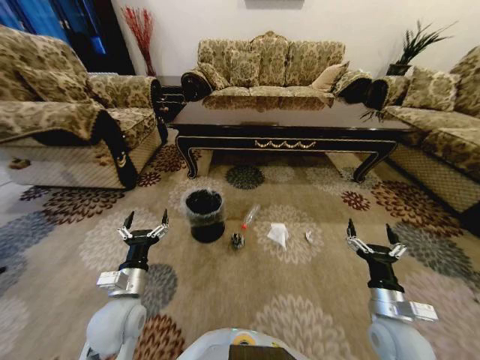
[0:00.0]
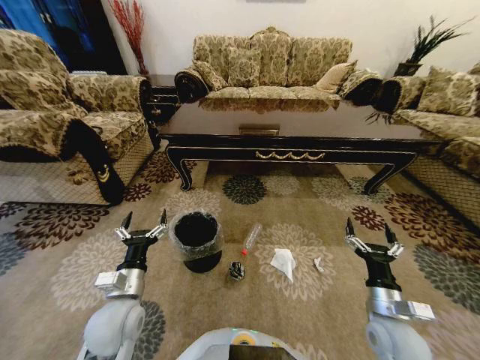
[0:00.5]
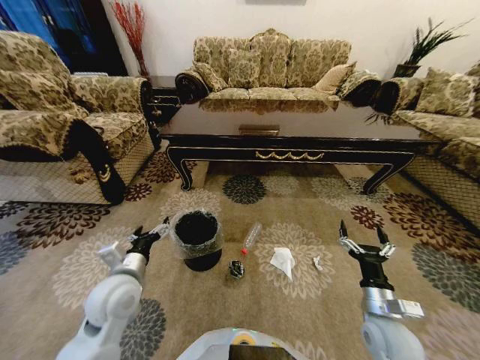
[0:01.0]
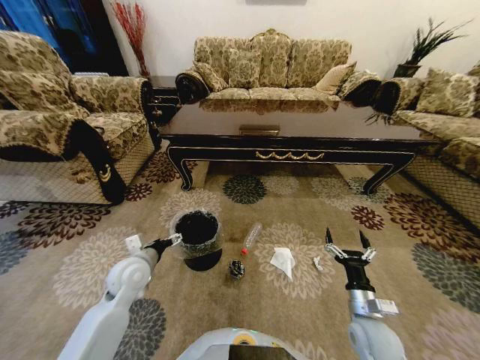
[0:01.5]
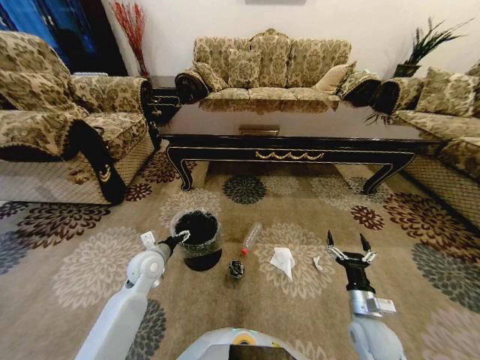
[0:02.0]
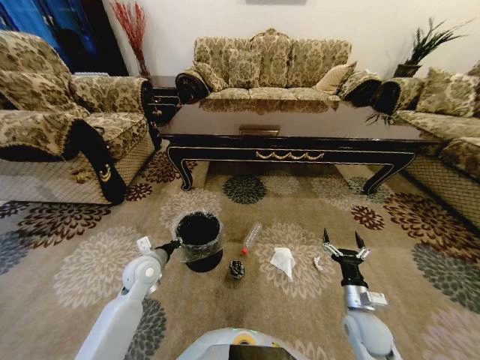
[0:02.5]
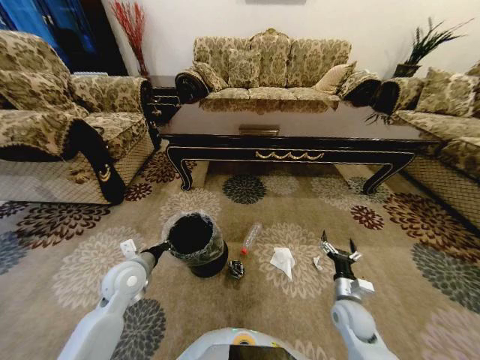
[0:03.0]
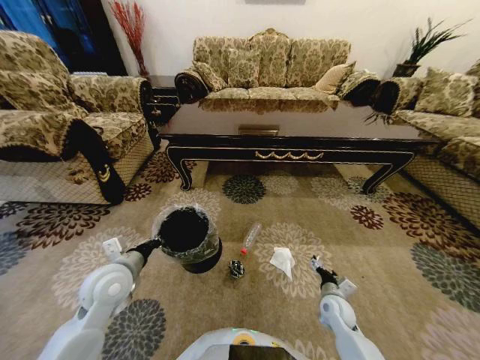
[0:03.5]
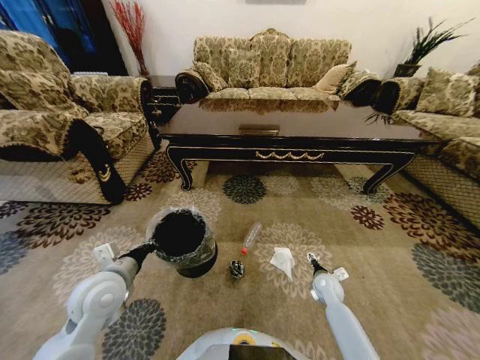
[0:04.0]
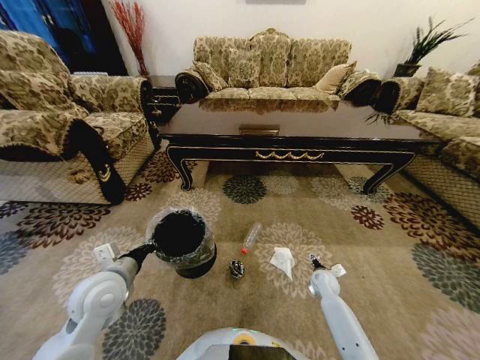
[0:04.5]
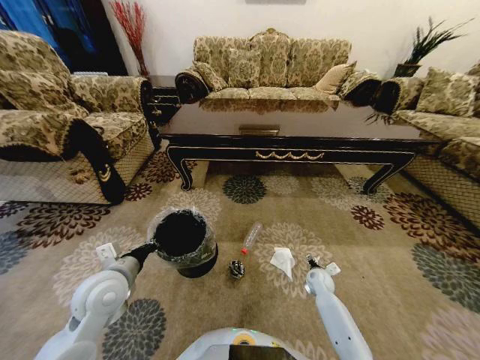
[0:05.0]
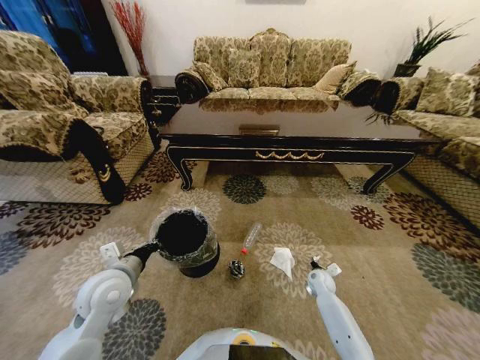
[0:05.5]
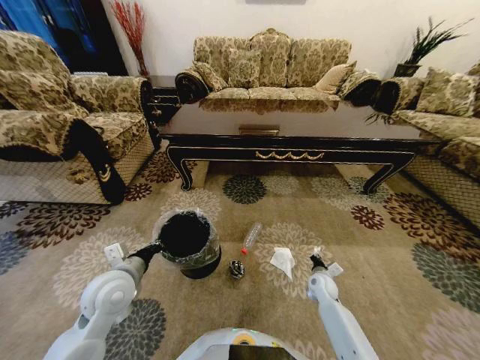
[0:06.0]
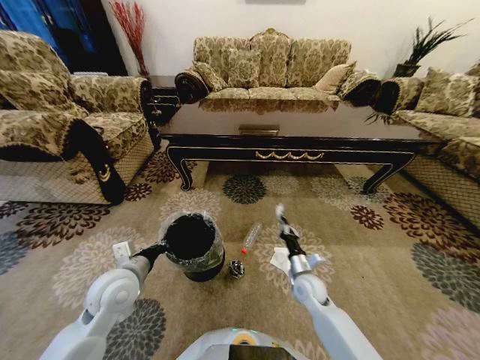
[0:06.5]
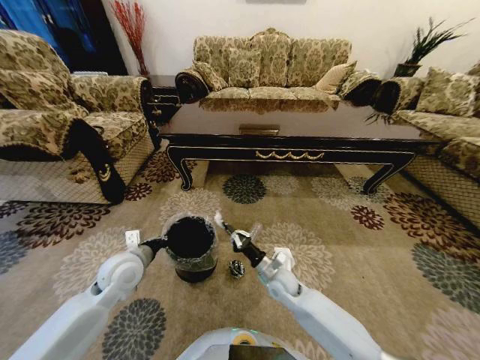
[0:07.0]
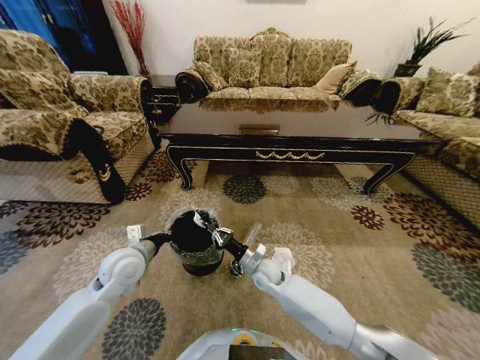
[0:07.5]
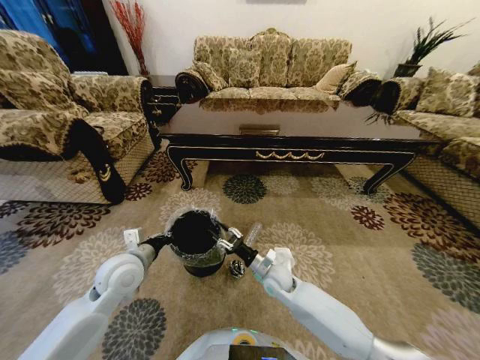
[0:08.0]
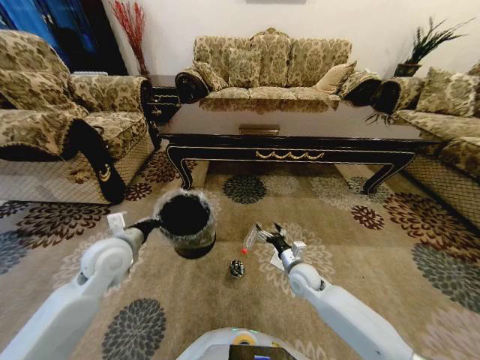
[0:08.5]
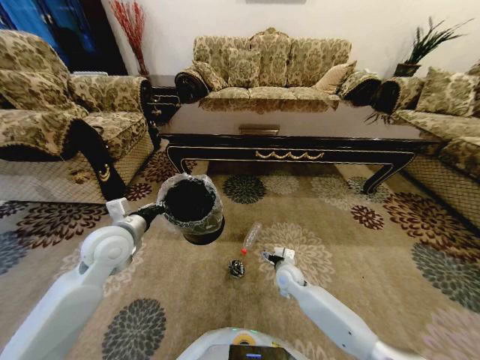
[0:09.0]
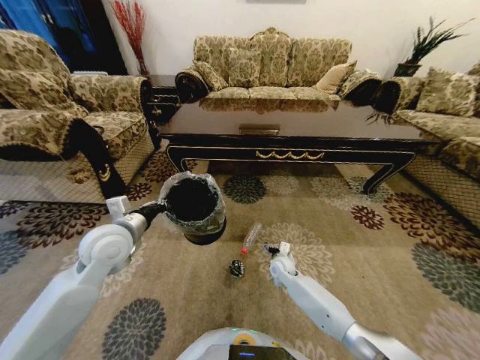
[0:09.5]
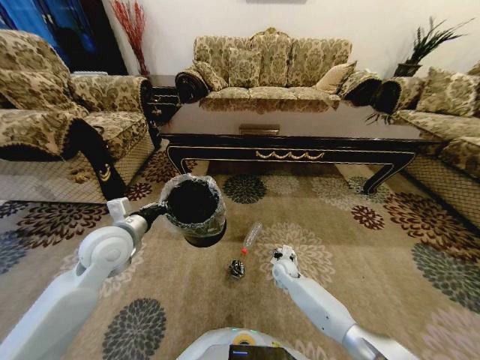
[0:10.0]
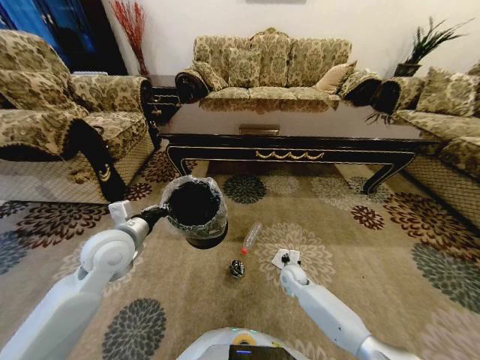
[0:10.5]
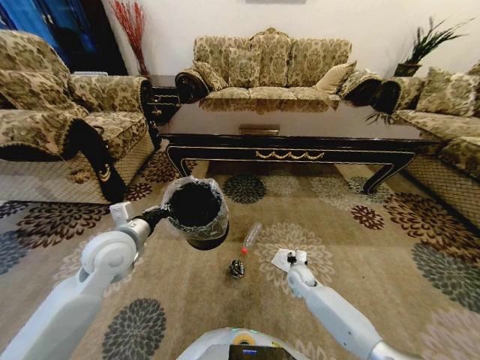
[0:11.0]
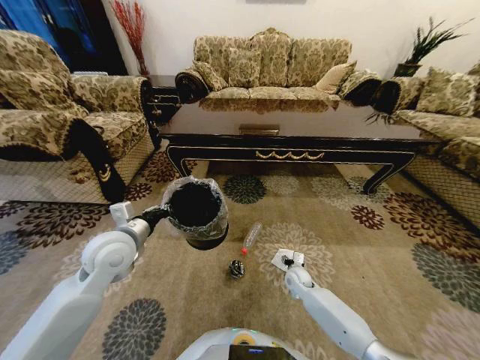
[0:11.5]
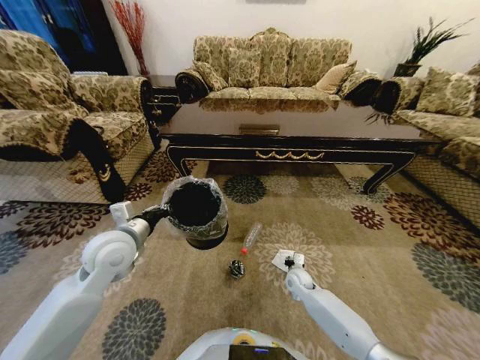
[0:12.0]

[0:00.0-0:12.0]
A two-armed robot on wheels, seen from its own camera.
Task of the whole recording: Move to the front of the table and pick up the trash from the floor, then place it into the trash bin.
0:00.0 to 0:02.0: The right gripper heads downward, covering about 5 cm. Meanwhile the left gripper moves forward, some 15 cm.
0:02.0 to 0:04.0: The right gripper heads forward and downward, covering roughly 15 cm. The left gripper moves backward and upward, some 15 cm, and closes up.
0:04.0 to 0:06.0: The right gripper closes.
0:06.0 to 0:08.0: The right gripper is displaced to the left and upward by approximately 20 cm, and opens.
0:08.0 to 0:10.0: The right gripper travels downward, forward and to the right by approximately 10 cm, and opens. Meanwhile the left gripper shifts roughly 10 cm upward.
0:10.0 to 0:12.0: The right gripper ends up approximately 5 cm from where it was, and closes.

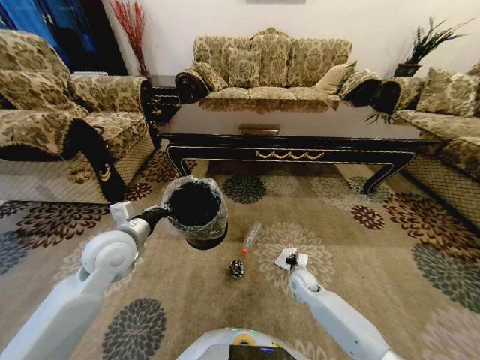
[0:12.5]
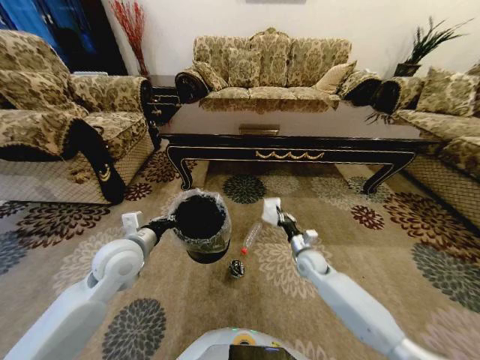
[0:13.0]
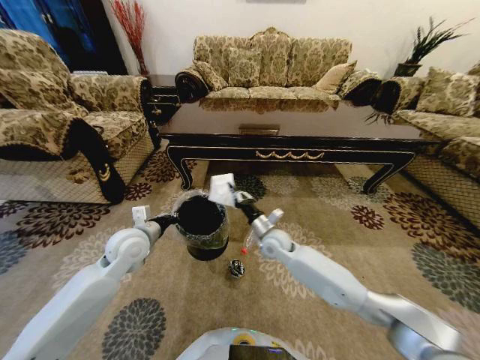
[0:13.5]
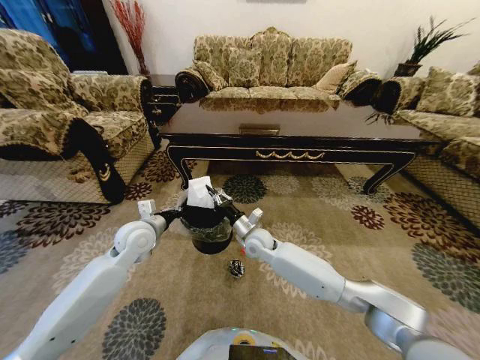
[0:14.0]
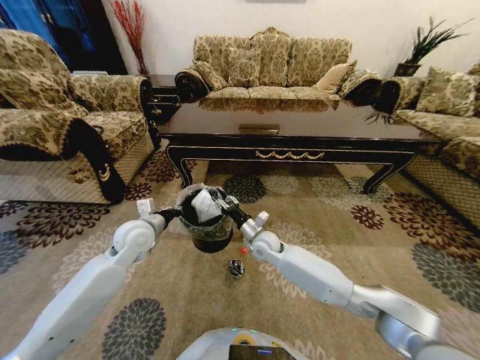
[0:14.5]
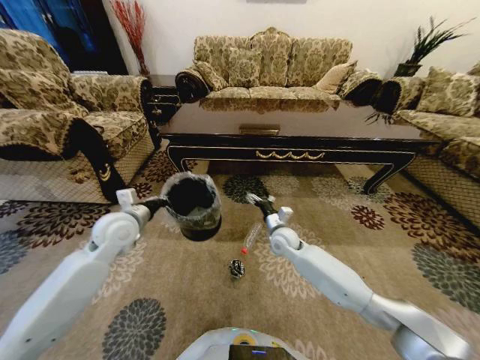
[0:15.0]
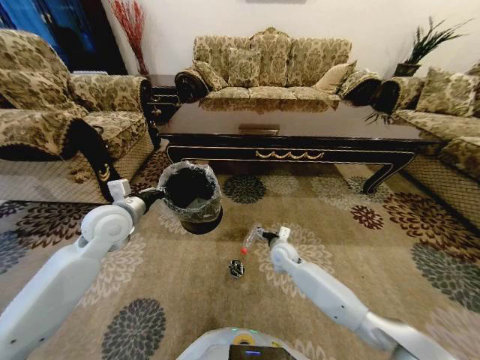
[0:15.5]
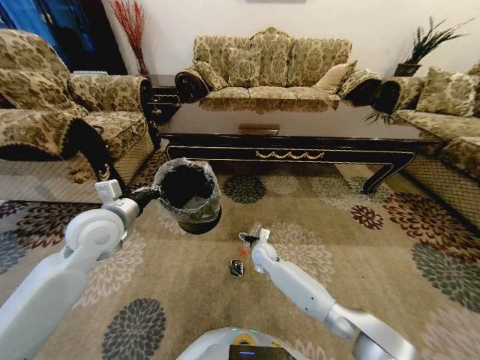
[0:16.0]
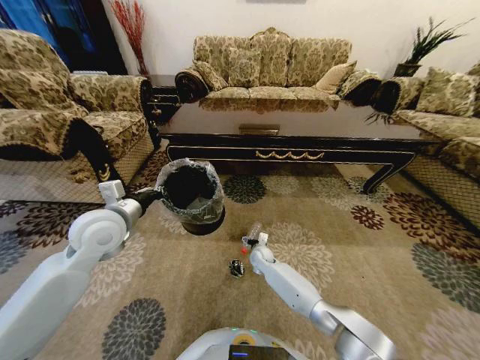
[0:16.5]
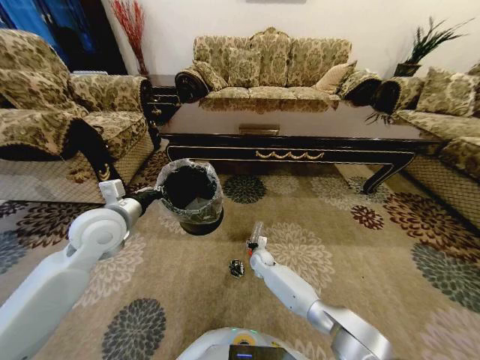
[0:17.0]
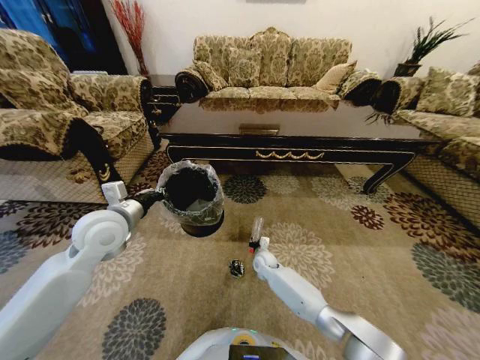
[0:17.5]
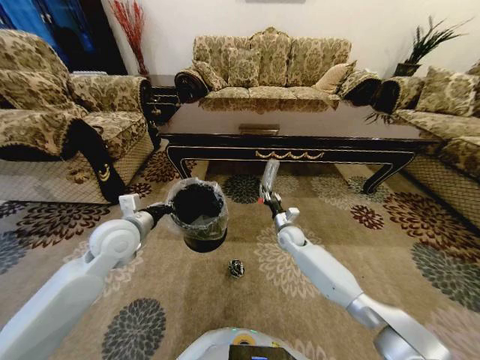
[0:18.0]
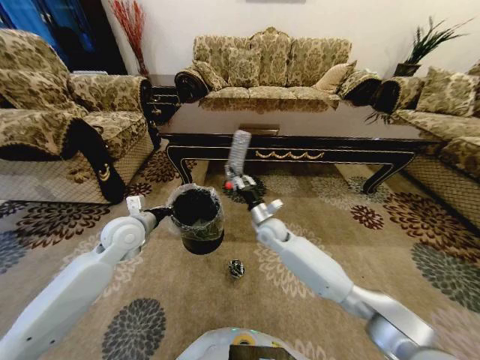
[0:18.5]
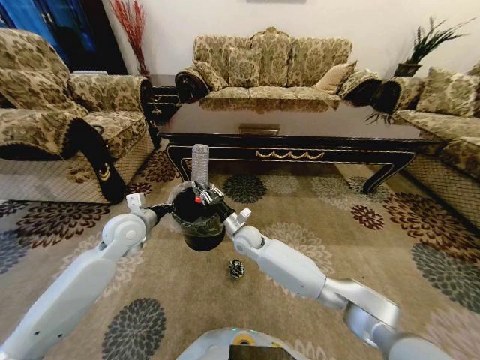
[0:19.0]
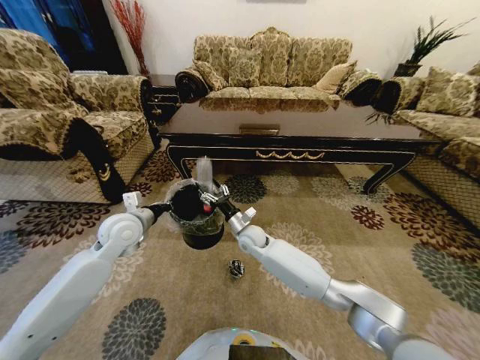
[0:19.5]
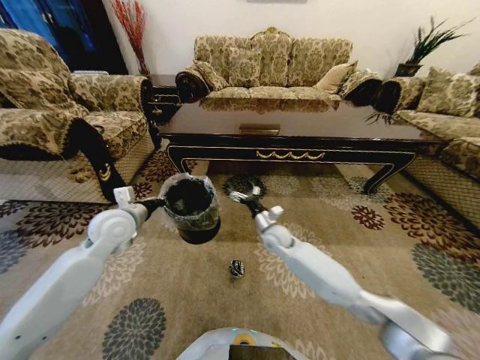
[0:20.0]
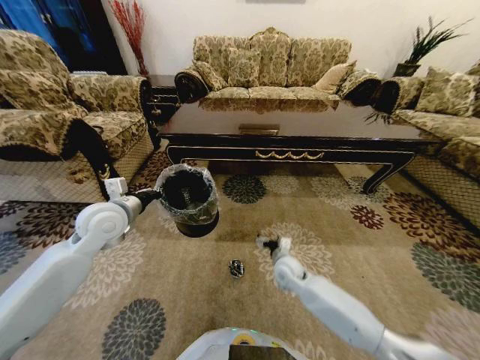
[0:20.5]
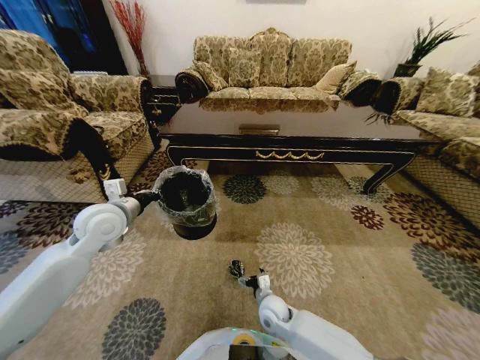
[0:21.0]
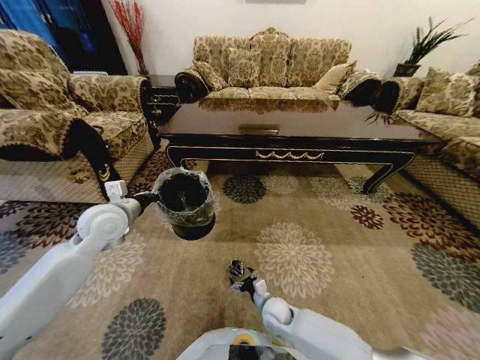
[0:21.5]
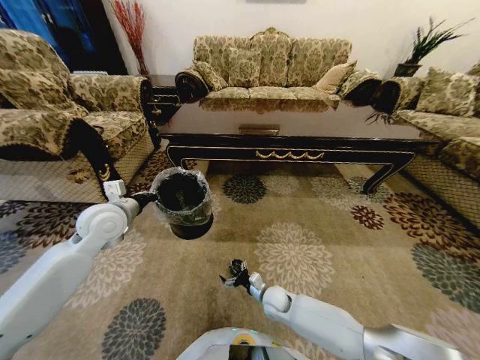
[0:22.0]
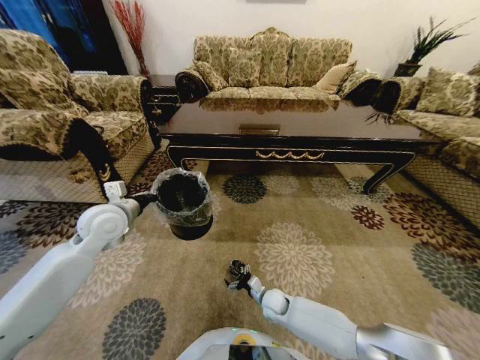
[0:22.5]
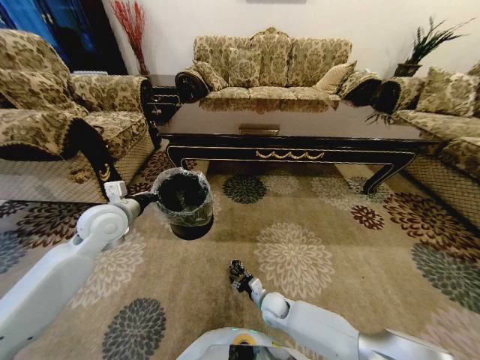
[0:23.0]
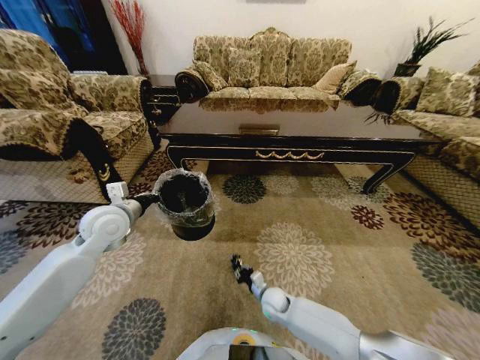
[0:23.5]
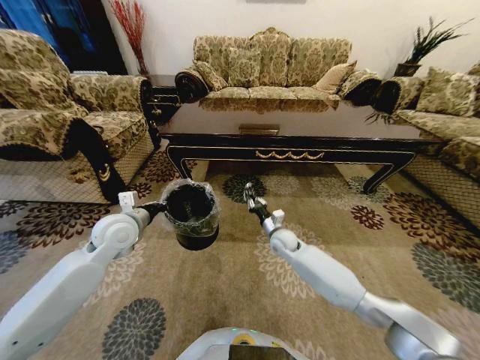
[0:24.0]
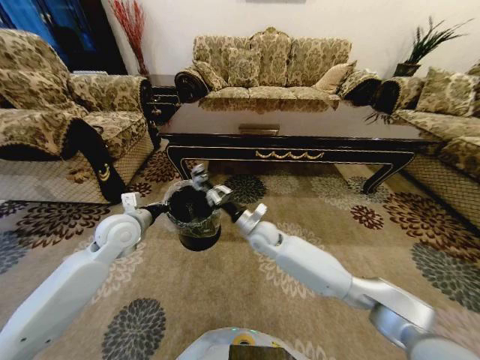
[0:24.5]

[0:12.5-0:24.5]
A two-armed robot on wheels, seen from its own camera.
Task of the whole recording: Move to the front of the table and pick up the trash from the floor, then place it into the trash bin.
0:12.5 to 0:14.5: The right gripper is displaced to the left, upward and forward by roughly 25 cm, and opens up. Meanwhile the left gripper goes about 5 cm forward.
0:14.5 to 0:16.5: The left gripper moves upward, some 10 cm. The right gripper goes some 15 cm downward, and opens up.
0:16.5 to 0:18.5: The left gripper travels downward by roughly 5 cm. The right gripper shifts roughly 20 cm upward, and closes its fingers.
0:18.5 to 0:20.5: The right gripper goes roughly 15 cm downward, backward and to the right, and opens up. Meanwhile the left gripper shifts about 5 cm upward.
0:20.5 to 0:22.5: The right gripper heads downward and backward, covering about 15 cm.
0:22.5 to 0:24.5: The right gripper travels upward and forward by some 25 cm, and closes its fingers.

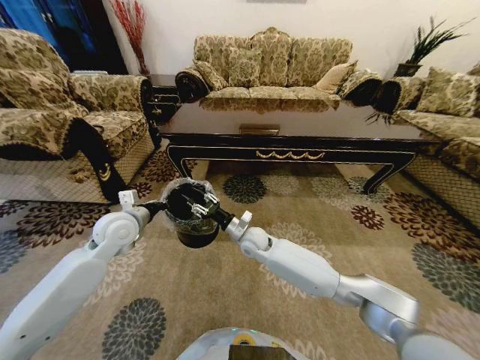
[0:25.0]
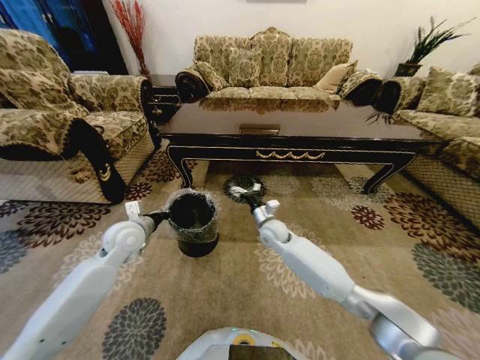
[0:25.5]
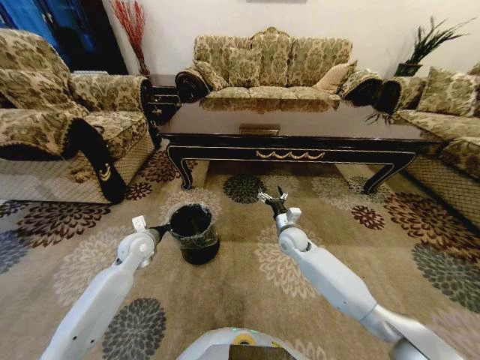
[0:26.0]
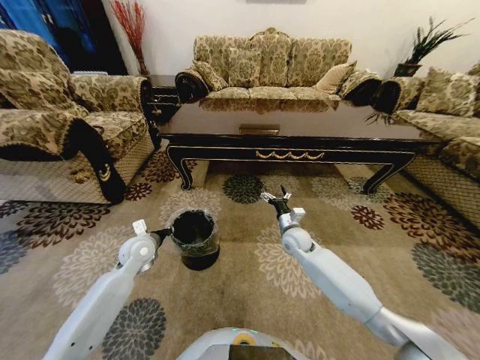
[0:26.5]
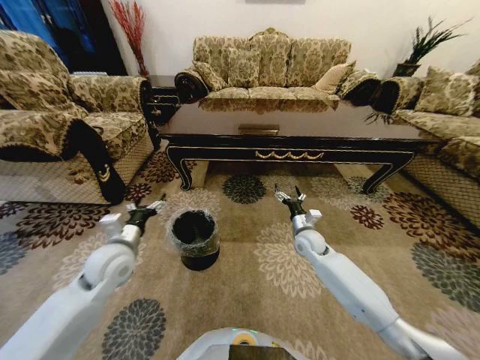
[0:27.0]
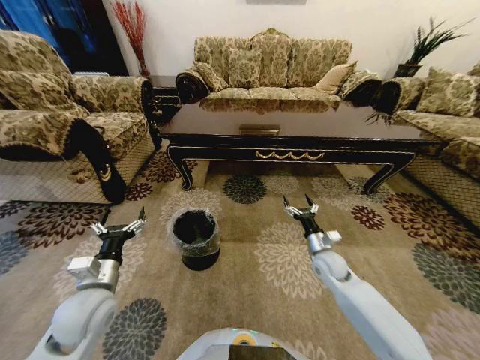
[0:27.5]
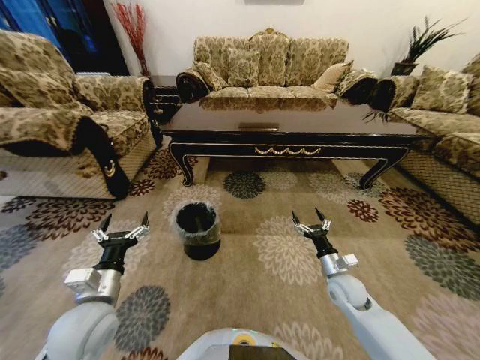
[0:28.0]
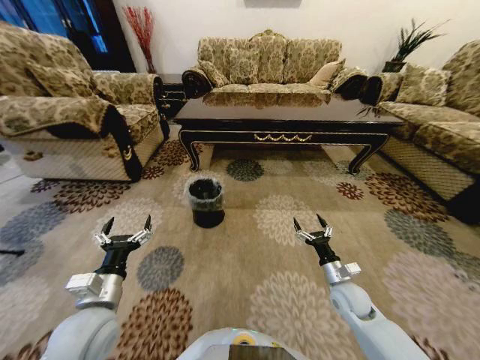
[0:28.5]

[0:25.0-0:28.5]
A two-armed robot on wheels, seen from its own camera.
Task of the whole recording: Move to the front of the table and pick up the trash from the floor, then place it into the trash bin.
0:25.0 to 0:27.0: The right gripper moves to the right, some 20 cm, and opens its fingers. Meanwhile the left gripper travels backward by some 5 cm, and opens up.
0:27.0 to 0:28.5: The left gripper moves backward, approximately 15 cm. The right gripper shifts some 15 cm backward and to the right.
